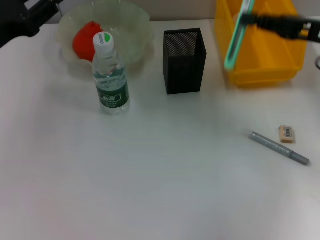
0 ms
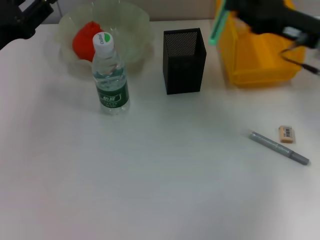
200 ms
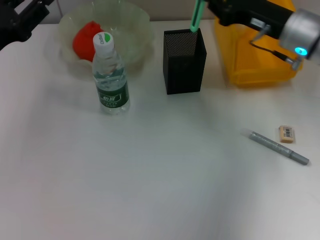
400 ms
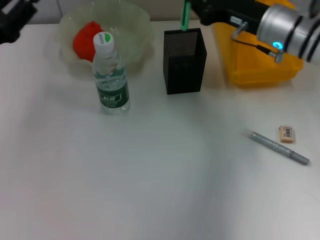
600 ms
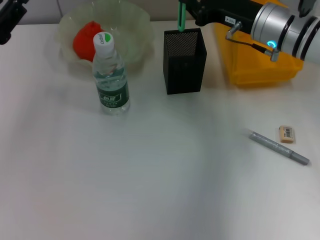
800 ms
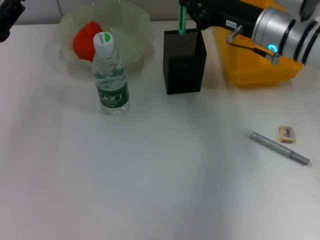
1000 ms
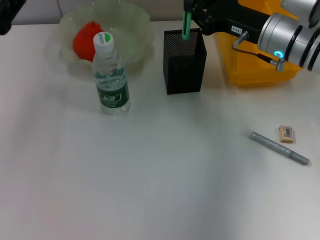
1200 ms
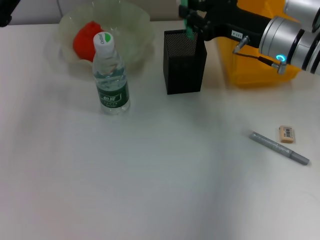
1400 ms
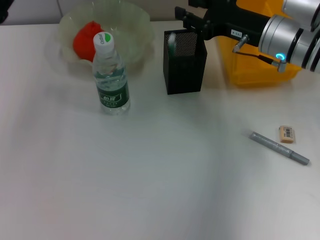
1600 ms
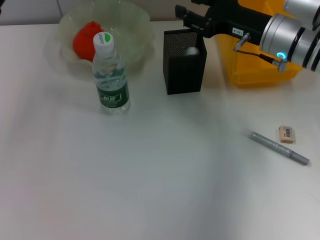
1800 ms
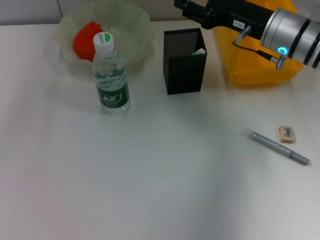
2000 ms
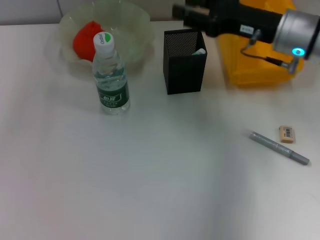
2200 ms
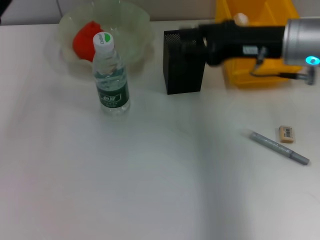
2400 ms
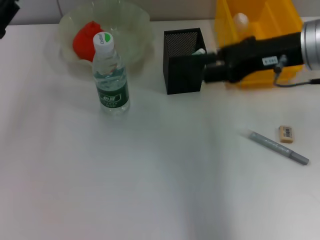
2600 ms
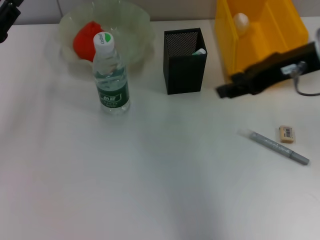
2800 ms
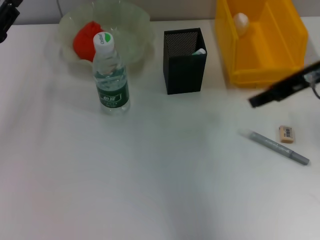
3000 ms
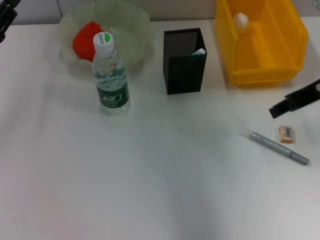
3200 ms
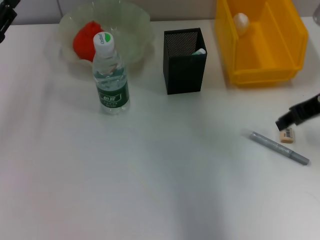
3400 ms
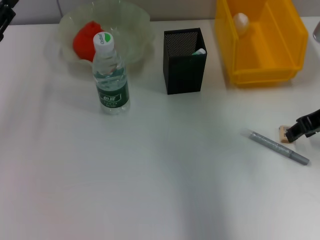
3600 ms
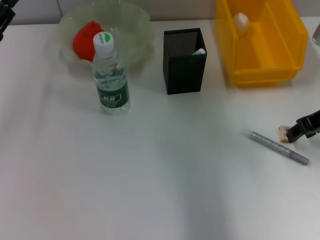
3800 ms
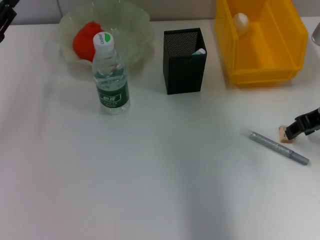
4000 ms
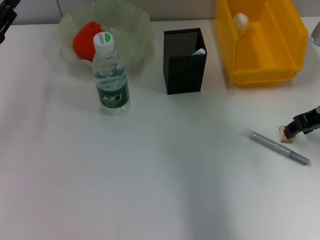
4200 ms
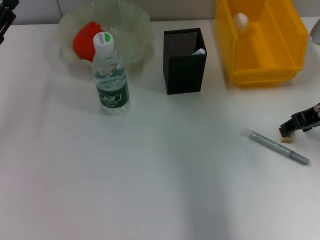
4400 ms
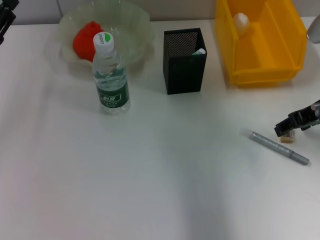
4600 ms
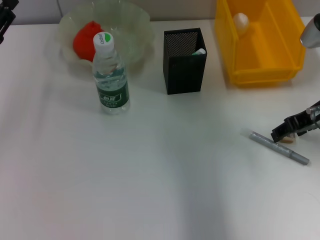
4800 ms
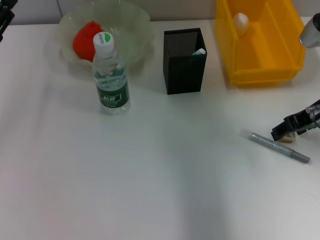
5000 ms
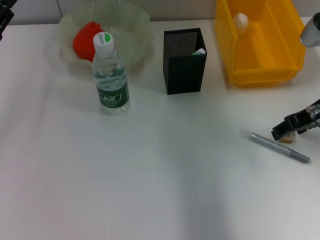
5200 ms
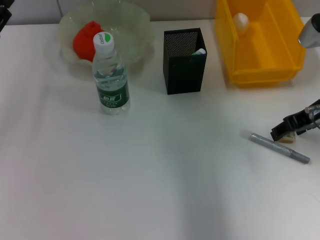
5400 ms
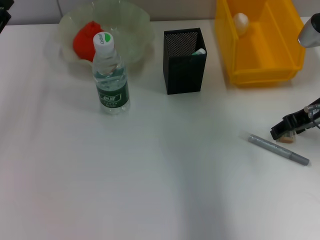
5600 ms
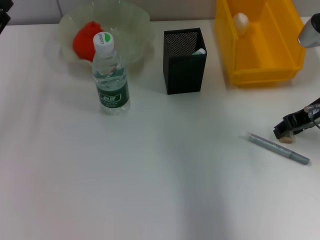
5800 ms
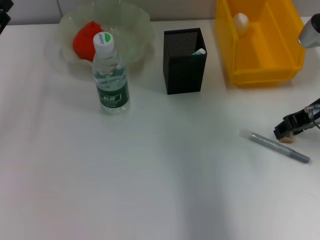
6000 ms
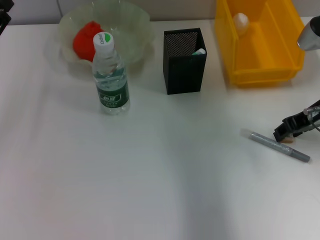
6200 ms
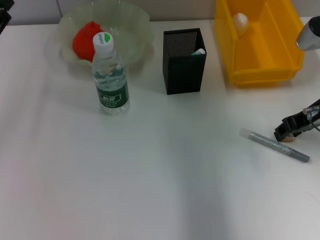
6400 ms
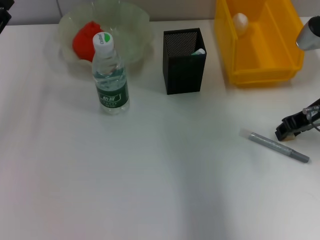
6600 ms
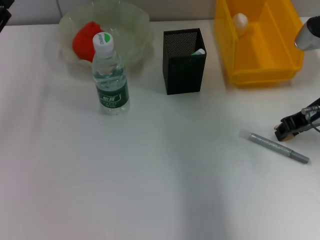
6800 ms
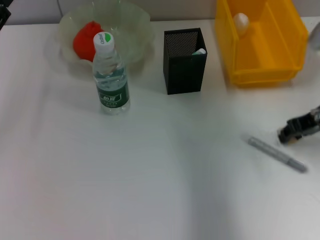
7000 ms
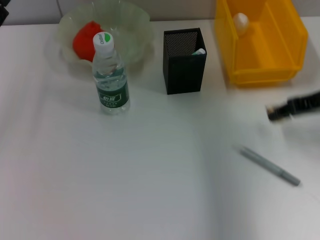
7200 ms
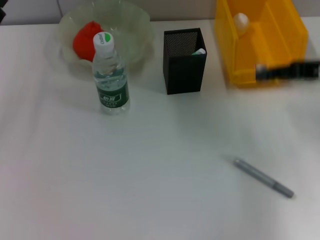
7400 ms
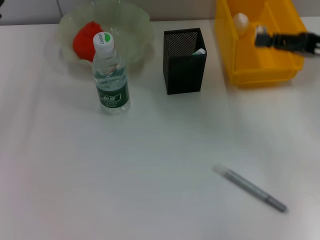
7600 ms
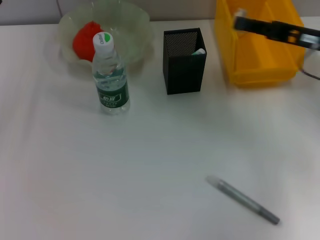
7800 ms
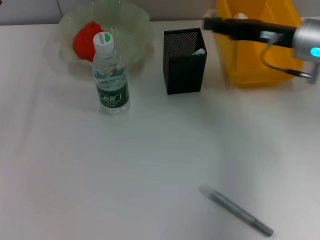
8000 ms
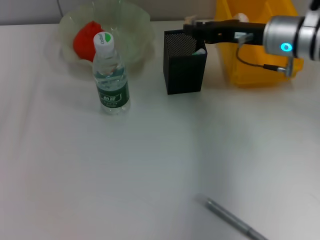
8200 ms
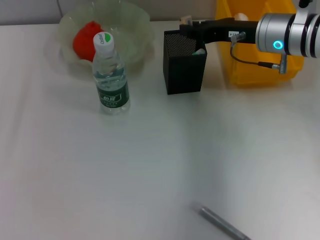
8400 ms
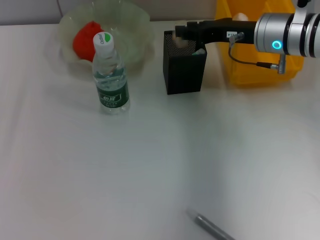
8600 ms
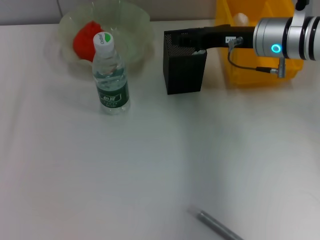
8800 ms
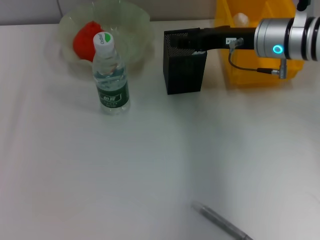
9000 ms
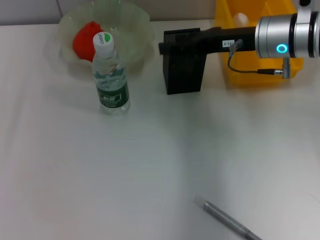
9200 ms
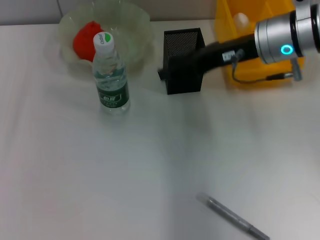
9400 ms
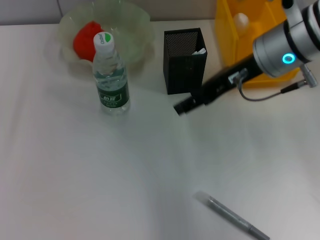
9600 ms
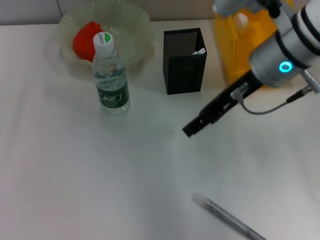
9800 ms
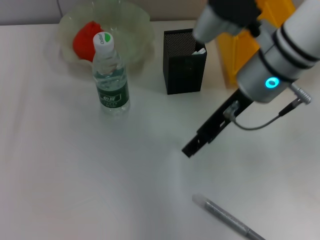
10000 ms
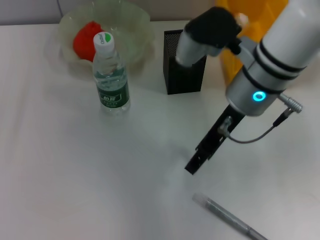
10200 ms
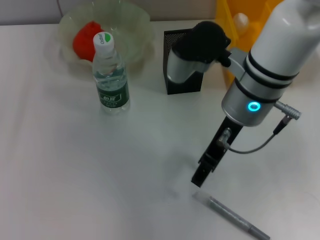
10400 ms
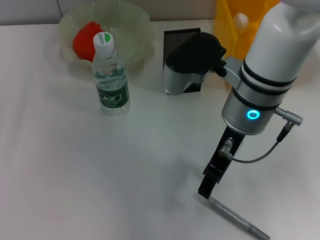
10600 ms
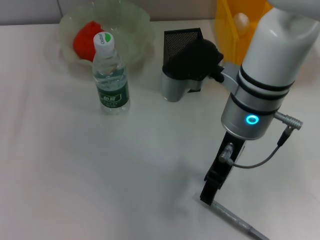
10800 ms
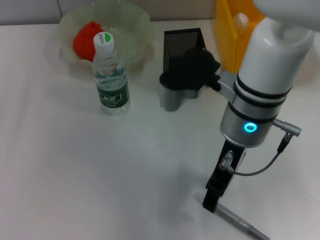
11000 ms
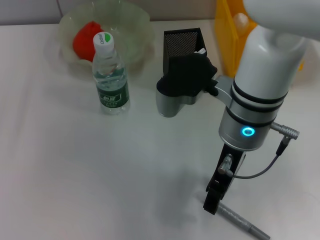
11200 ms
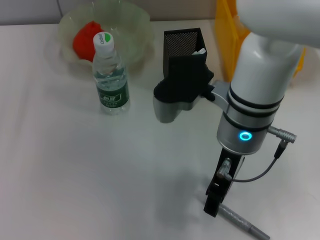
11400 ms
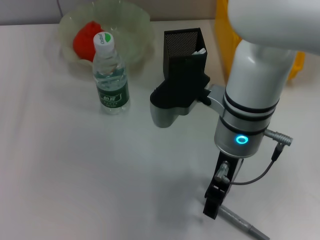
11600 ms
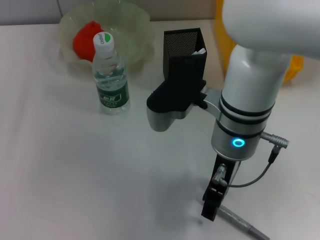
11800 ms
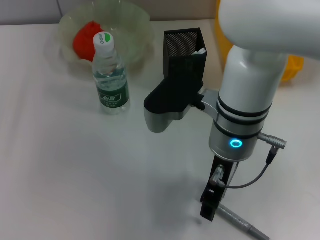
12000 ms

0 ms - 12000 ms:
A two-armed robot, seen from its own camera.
Step, 0 ms - 1400 ms: Place the blue utility knife into the pen holder with the right hand.
Step, 1600 ms - 6800 ms: Grab the eraser with the right hand.
Step, 7000 ms - 8600 ms: Put the eraser into the pen holder with the right hand.
0 ms - 1600 ms: The right gripper moves to the left, approximately 10 cm.
1600 ms - 3000 ms: The right gripper goes approximately 10 cm upward and backward, and opens.
3000 ms - 4400 ms: The right gripper moves downward, roughly 5 cm.
4400 ms - 6000 ms: There are only small adjustments of the grippers.
6000 ms - 7600 ms: The right gripper changes place by approximately 5 cm.
7600 ms - 9000 ms: The right gripper goes some 15 cm to the left and forward, and opens up.
9000 ms - 10400 ms: The right gripper heads to the left and backward, covering approximately 10 cm.

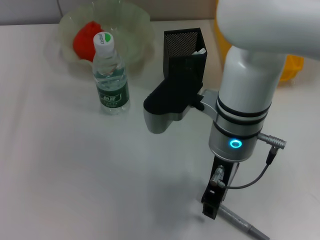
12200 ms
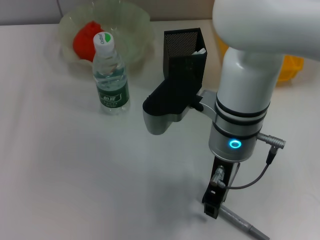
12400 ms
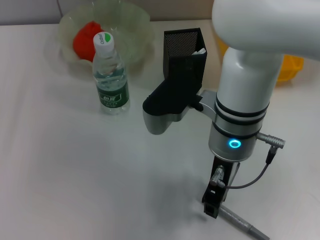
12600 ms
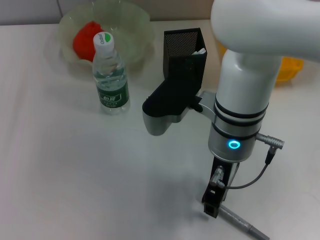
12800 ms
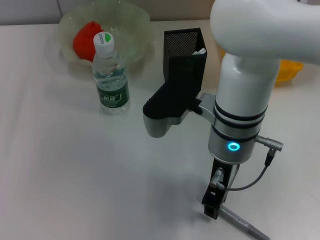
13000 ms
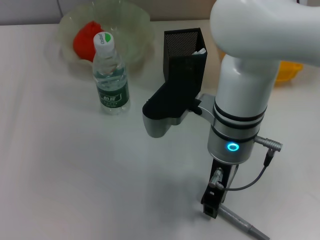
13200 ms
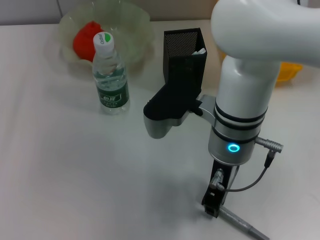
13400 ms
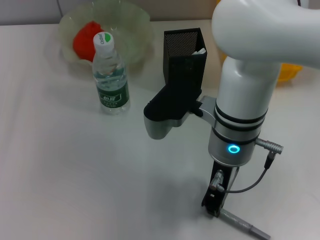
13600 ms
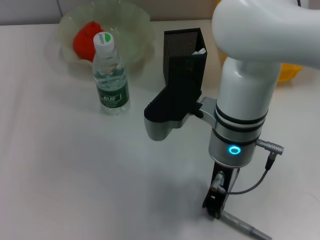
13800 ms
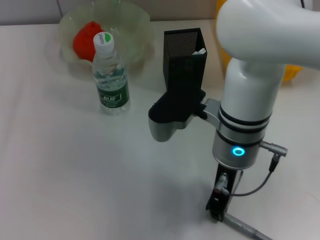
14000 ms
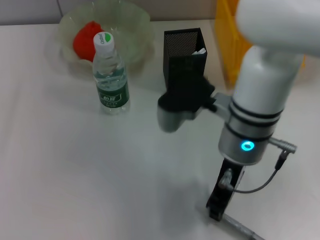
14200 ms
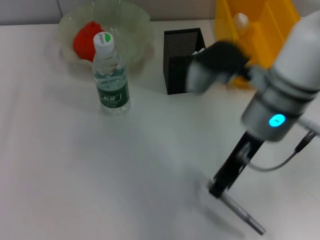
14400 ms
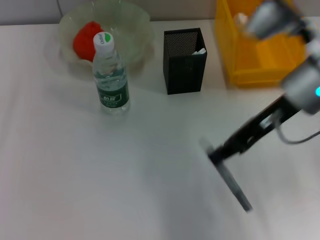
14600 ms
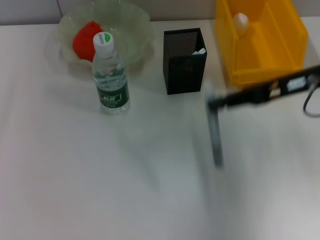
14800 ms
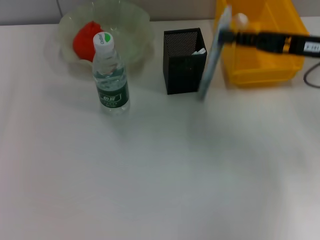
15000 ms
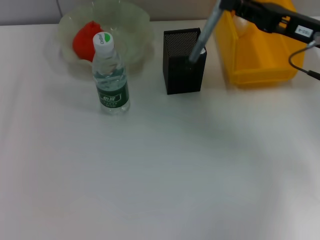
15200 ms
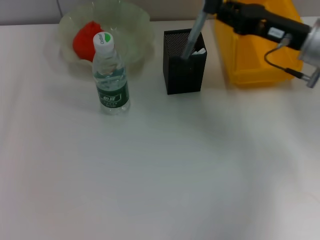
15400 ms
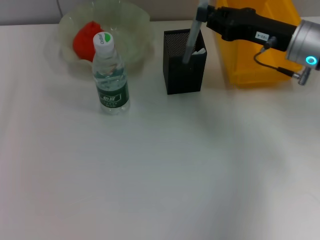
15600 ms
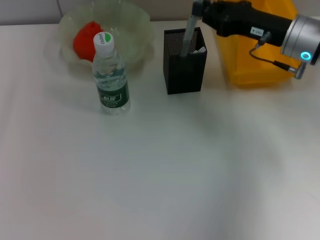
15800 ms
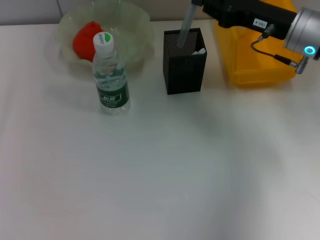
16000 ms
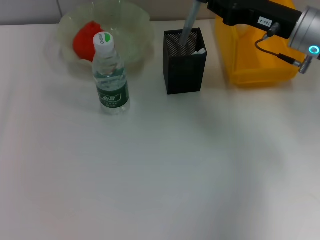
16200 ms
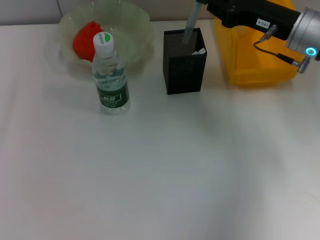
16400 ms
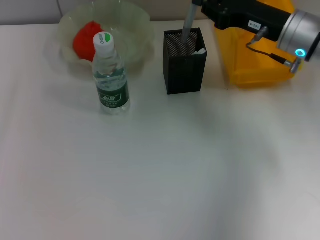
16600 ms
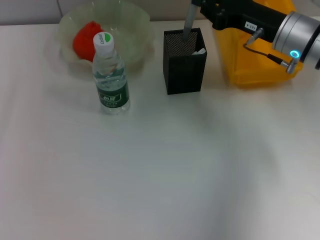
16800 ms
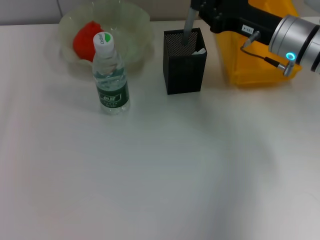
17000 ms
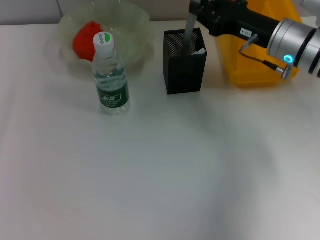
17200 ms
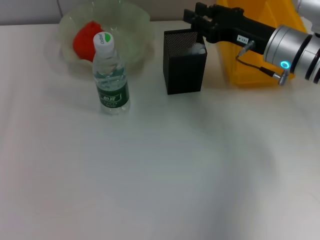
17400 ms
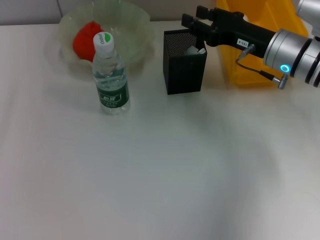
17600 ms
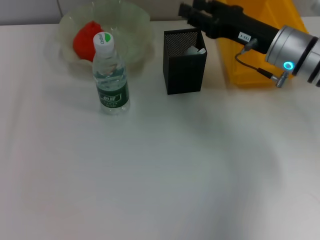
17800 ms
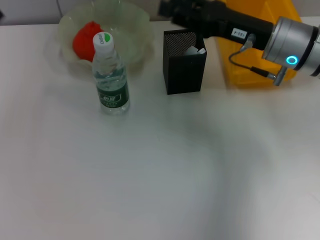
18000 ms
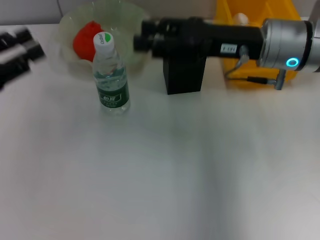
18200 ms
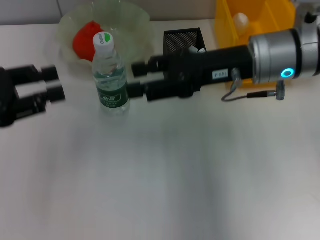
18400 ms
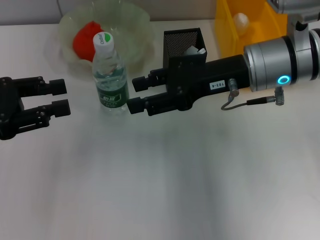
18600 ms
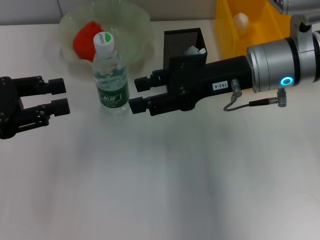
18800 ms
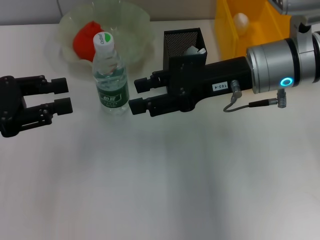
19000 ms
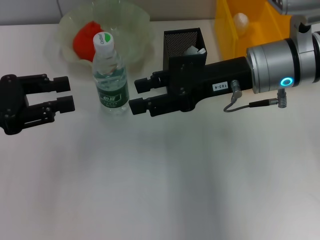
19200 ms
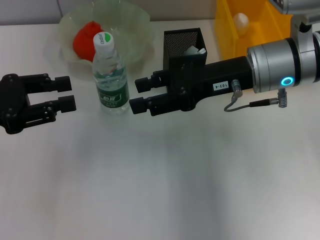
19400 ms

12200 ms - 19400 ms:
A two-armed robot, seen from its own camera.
Step, 14000 ms - 17200 ms: Place the gray glue into the pen holder with the right hand.
12200 ms - 13600 ms: The right gripper closes its fingers.
13600 ms - 15000 ms: The right gripper shifts about 20 cm to the right.
15000 ms - 16600 ms: The right gripper heads to the left, covering approximately 5 cm.
16600 ms - 18000 ms: The right gripper opens.
